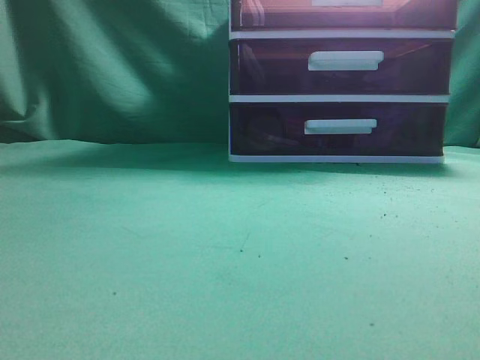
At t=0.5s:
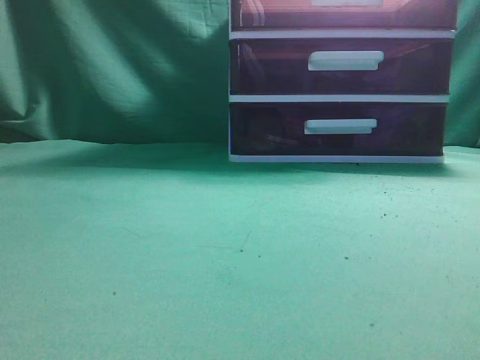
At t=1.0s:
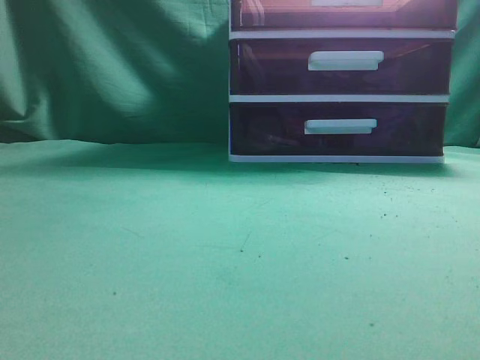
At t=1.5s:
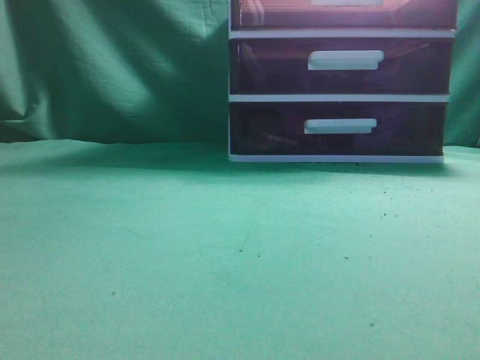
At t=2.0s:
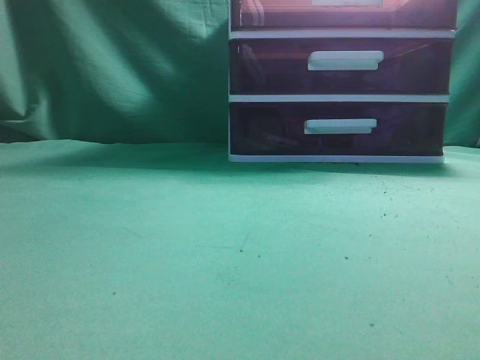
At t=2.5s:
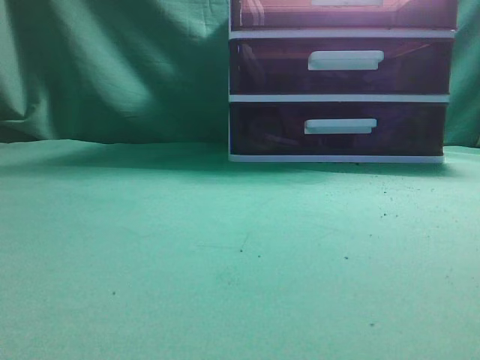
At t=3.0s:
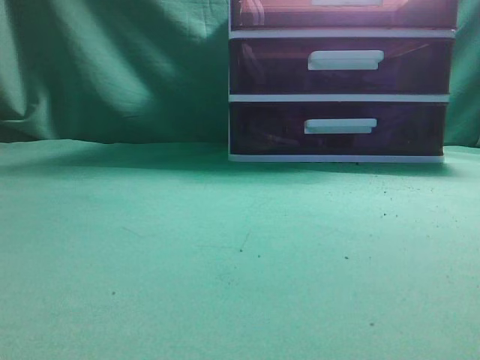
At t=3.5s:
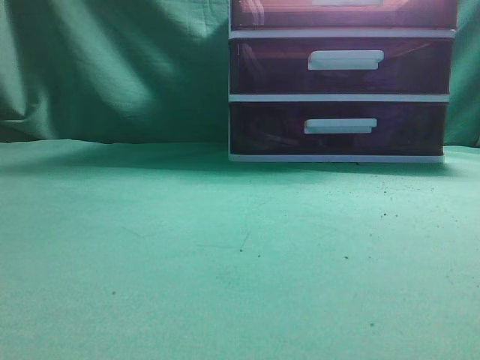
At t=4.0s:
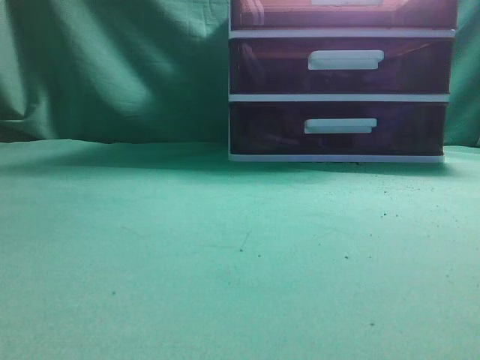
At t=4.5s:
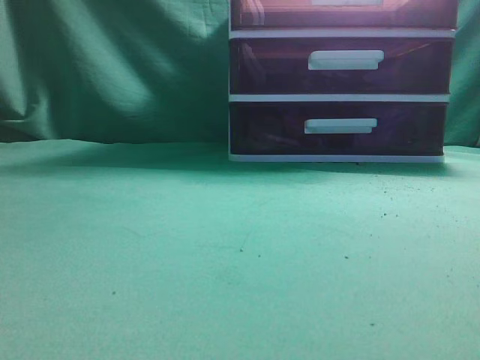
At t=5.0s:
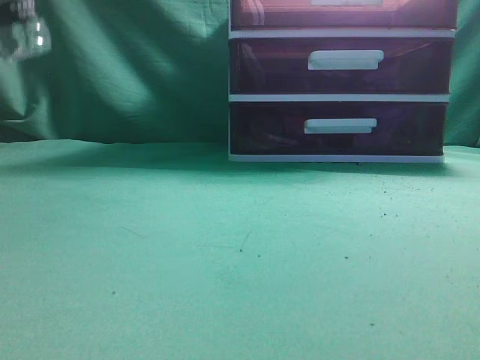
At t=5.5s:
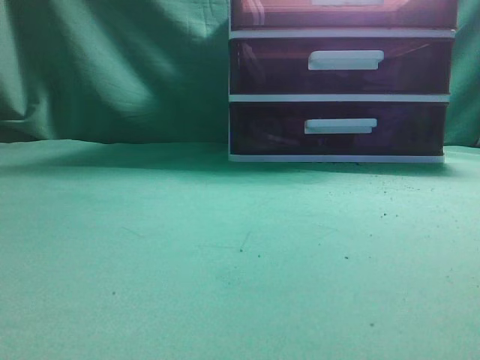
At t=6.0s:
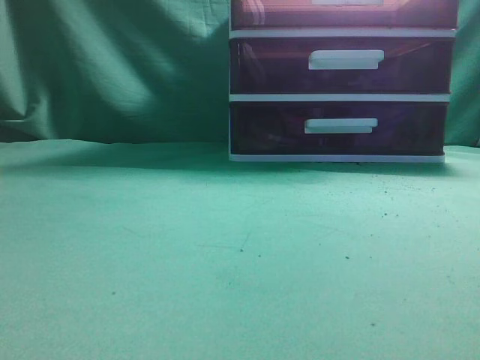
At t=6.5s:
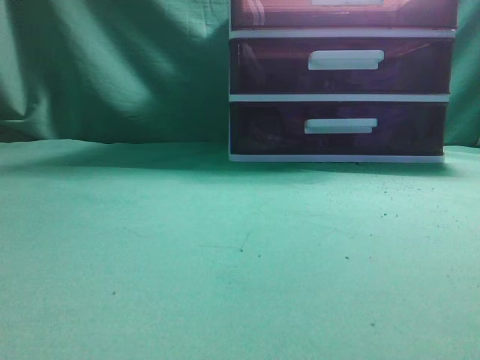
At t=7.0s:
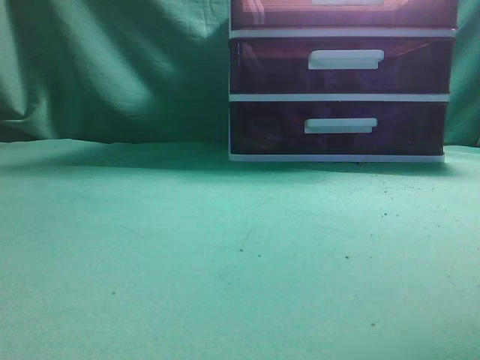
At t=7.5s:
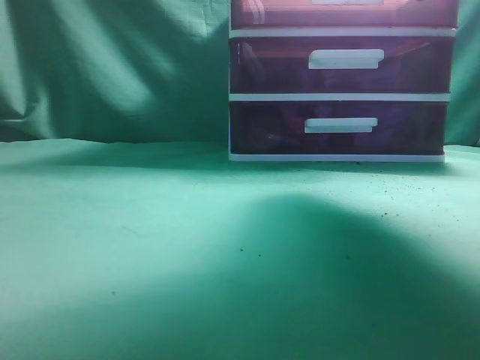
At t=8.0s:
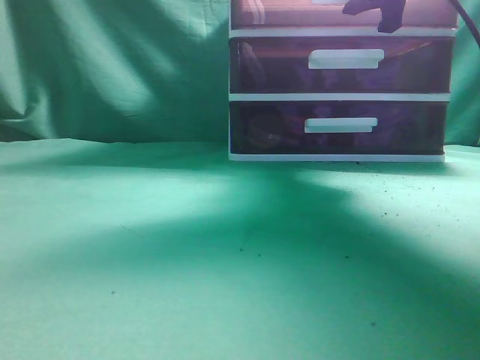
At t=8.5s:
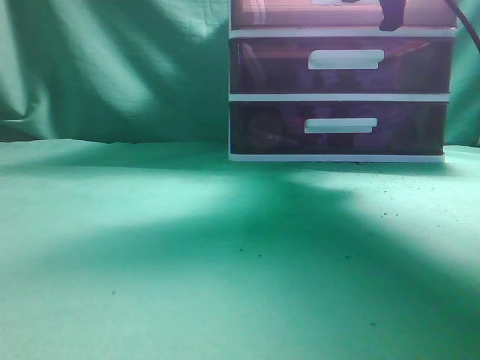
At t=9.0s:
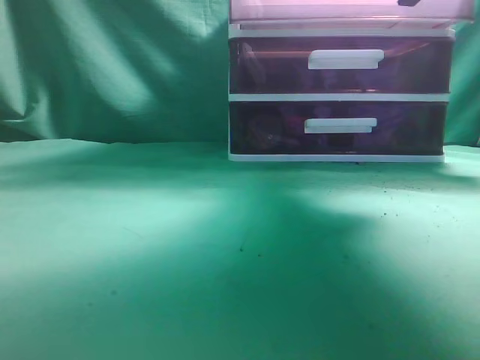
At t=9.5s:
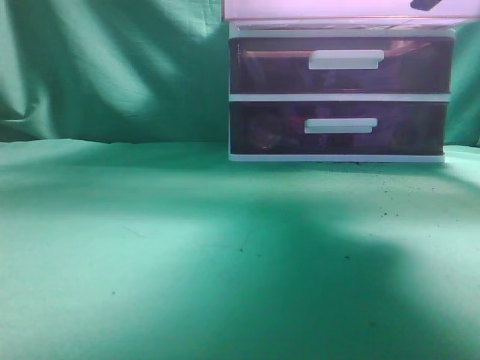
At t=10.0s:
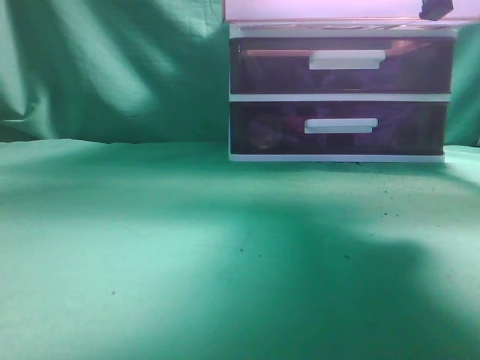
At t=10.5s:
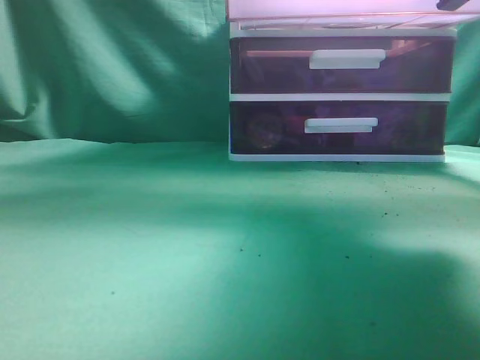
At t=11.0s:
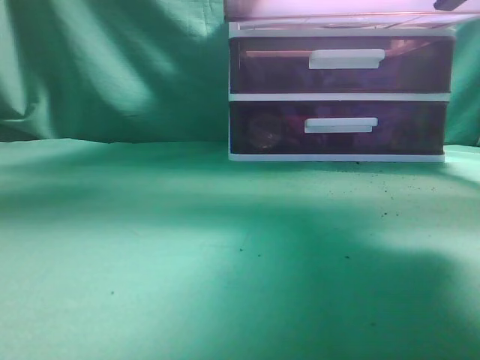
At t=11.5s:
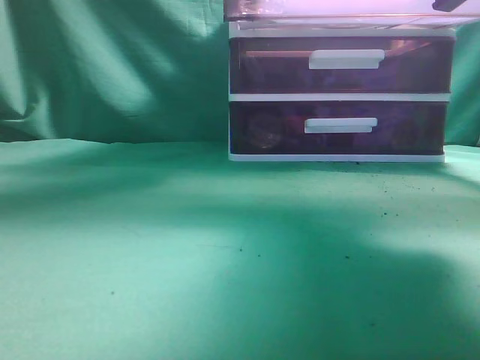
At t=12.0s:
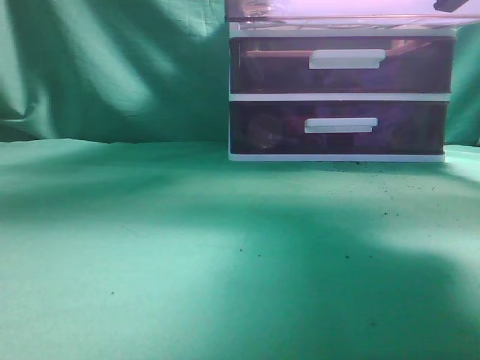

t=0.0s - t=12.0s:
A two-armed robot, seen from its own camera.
Task of the whole recording: place the water bottle into the drawer.
Step, t=0.0s - t=10.5s: Open the drawer.
t=6.0s - t=8.0s: The right gripper heads forward, covering approximately 35 cm, and opens.
t=8.0s - t=10.0s: The left gripper heads upward and forward, covering roughly 10 cm. Meanwhile the right gripper travels backward by approximately 10 cm, and closes up.
t=10.0s - t=12.0s: The left gripper goes approximately 20 cm forward and to the right, and opens.

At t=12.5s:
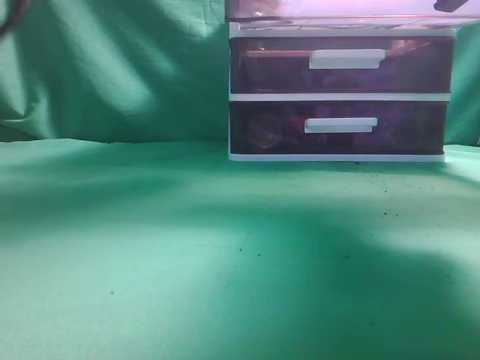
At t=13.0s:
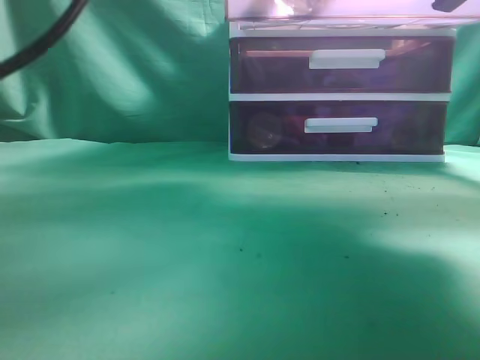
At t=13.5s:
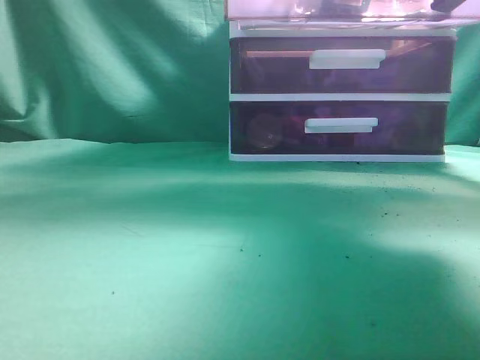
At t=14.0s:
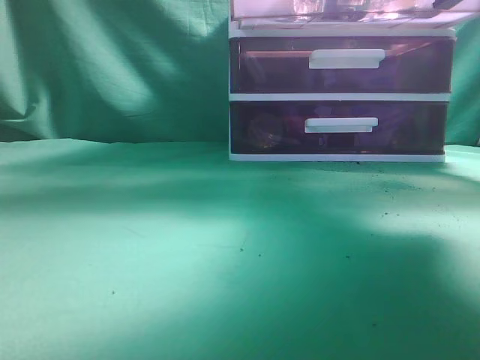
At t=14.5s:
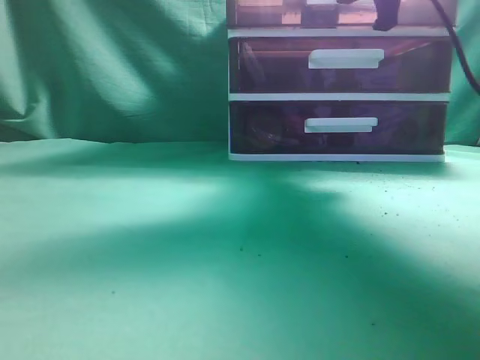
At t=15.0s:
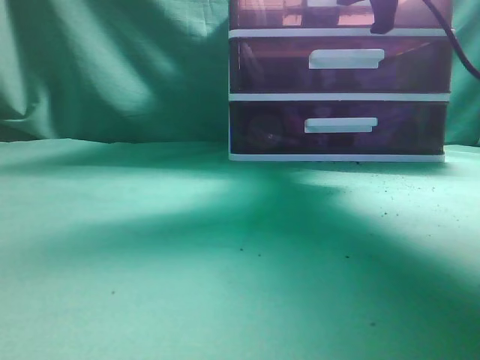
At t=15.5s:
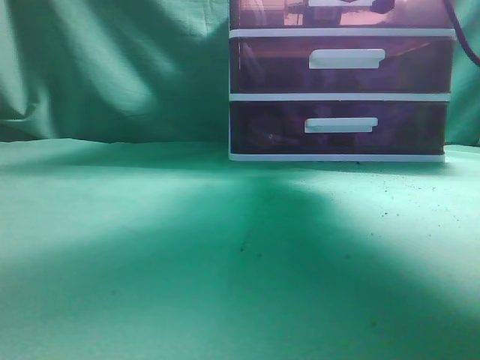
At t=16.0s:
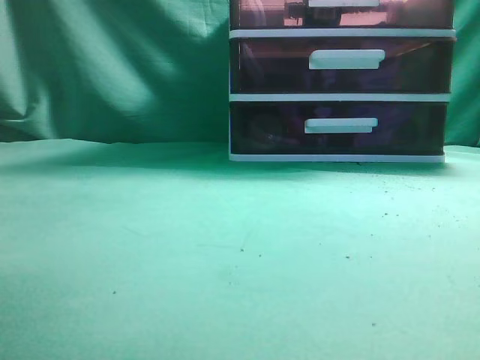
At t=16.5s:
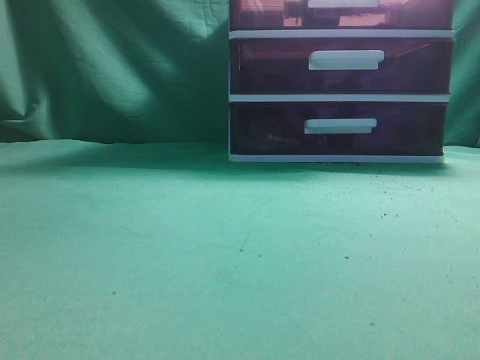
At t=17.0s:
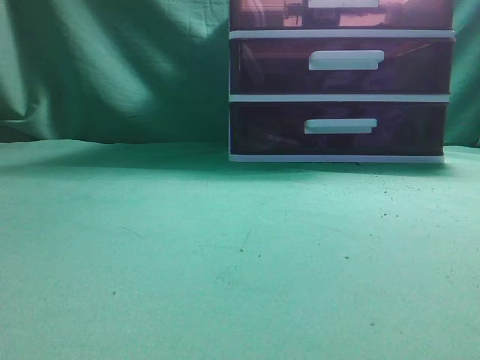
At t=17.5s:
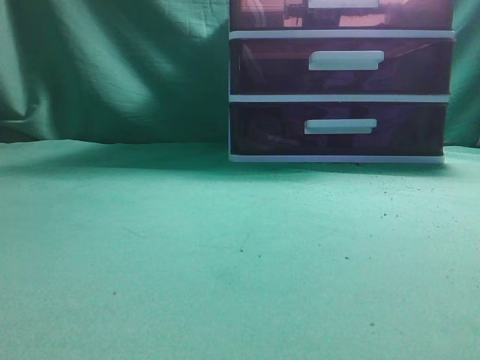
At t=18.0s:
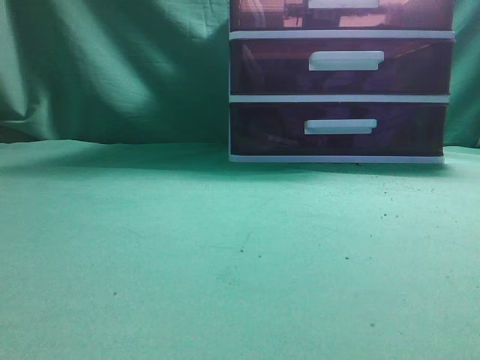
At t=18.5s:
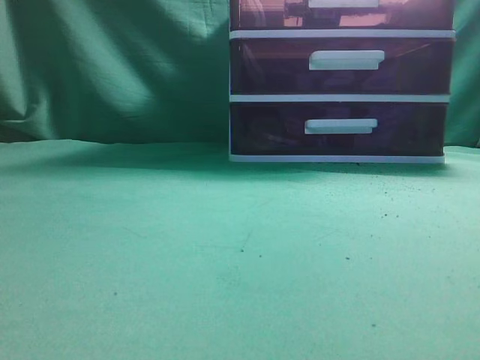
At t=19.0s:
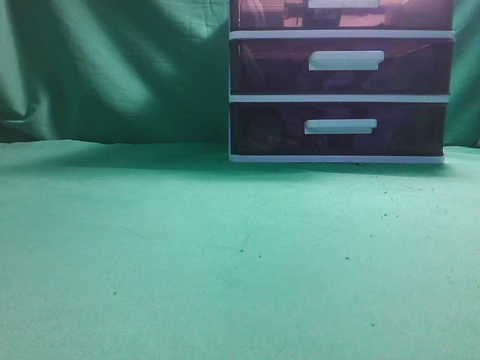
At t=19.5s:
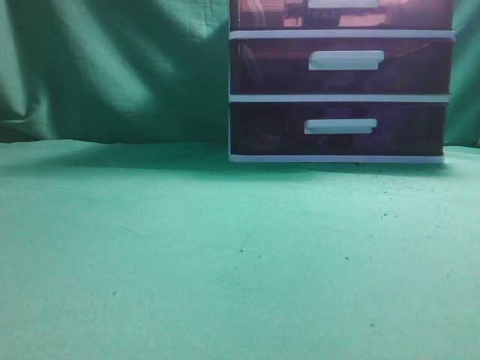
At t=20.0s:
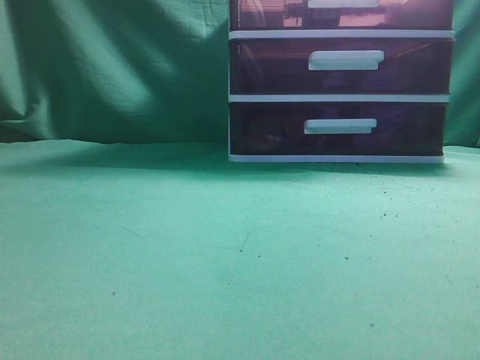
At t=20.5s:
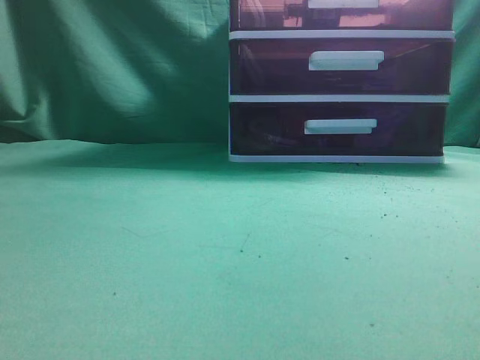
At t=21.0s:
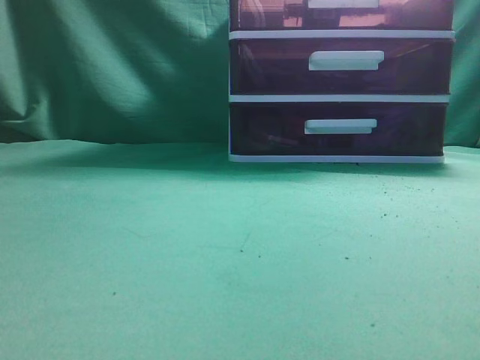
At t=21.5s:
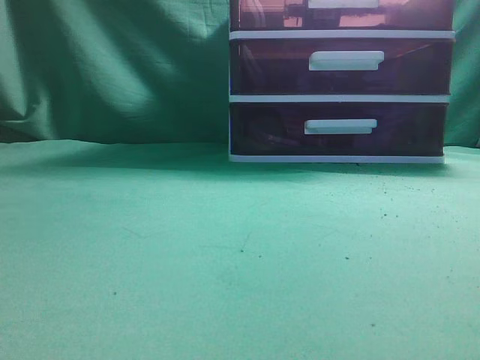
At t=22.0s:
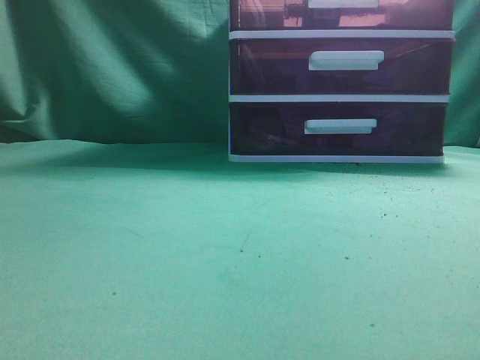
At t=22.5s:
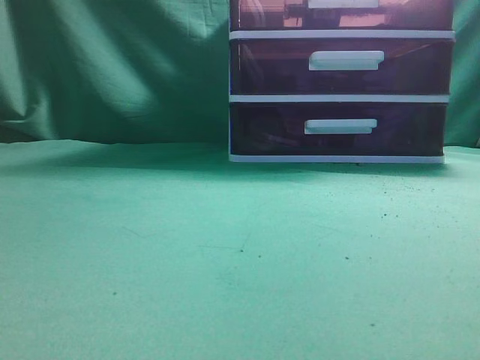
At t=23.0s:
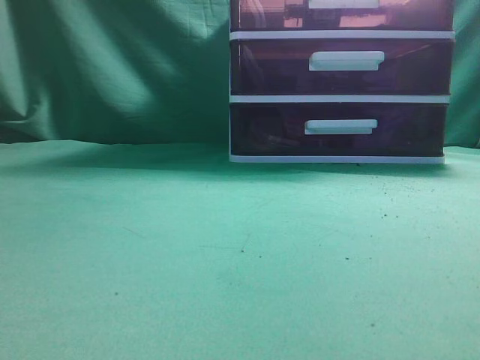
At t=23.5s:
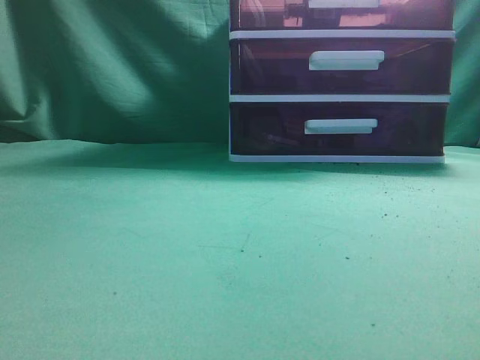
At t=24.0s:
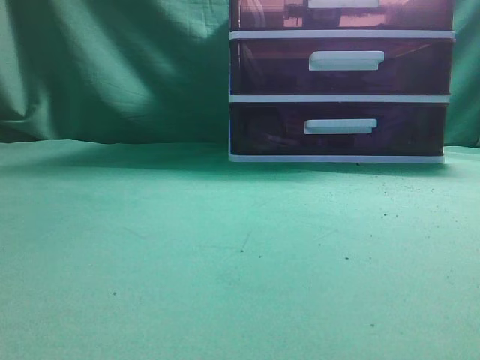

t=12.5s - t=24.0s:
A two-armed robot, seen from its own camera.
Task of the whole recording: place the water bottle into the drawer.
Step, t=14.0s - t=15.5s: Close the drawer.
t=12.5s - t=14.5s: The left gripper is displaced to the left and upward by some 15 cm, and closes up. The right gripper heads forward, covering approximately 10 cm.
t=14.5s - t=16.5s: The left gripper heads backward and upward, covering approximately 15 cm; the right gripper is displaced backward and upward by some 25 cm, and opens, then closes again.
